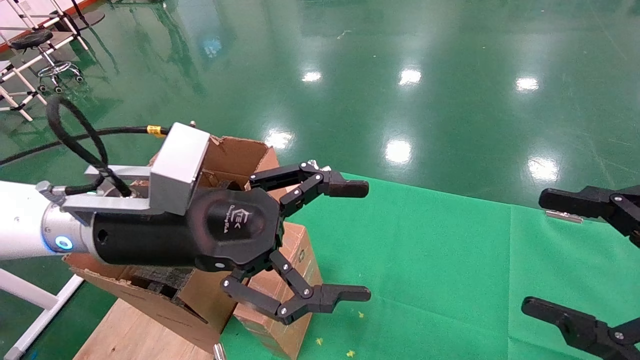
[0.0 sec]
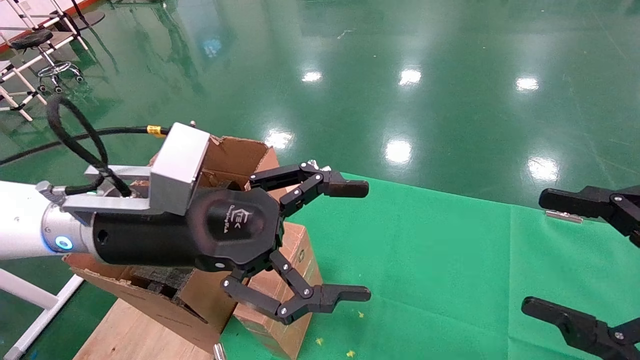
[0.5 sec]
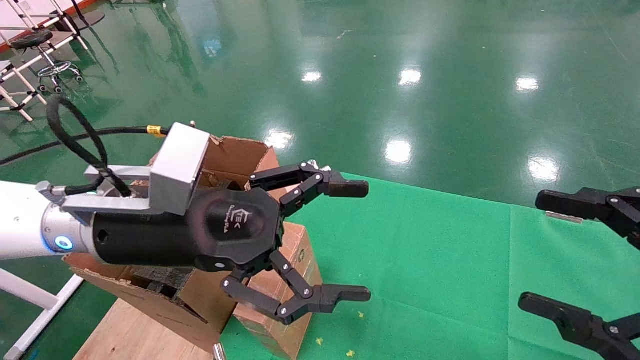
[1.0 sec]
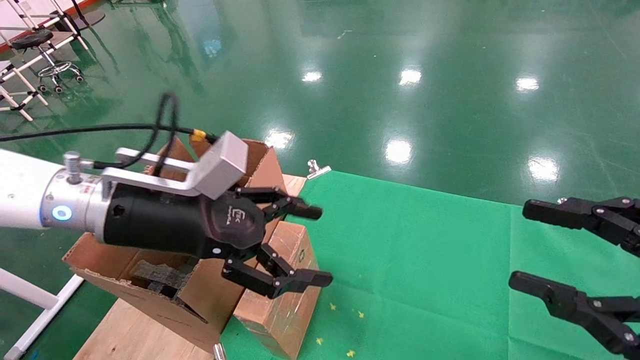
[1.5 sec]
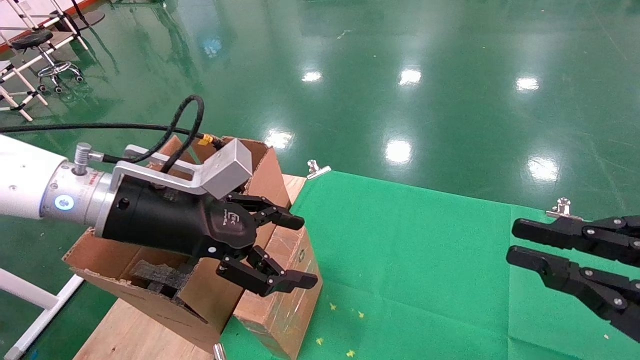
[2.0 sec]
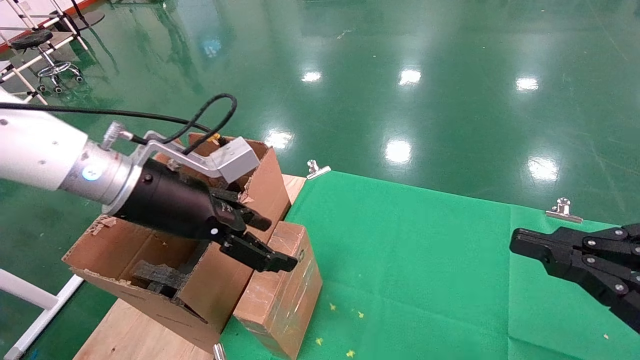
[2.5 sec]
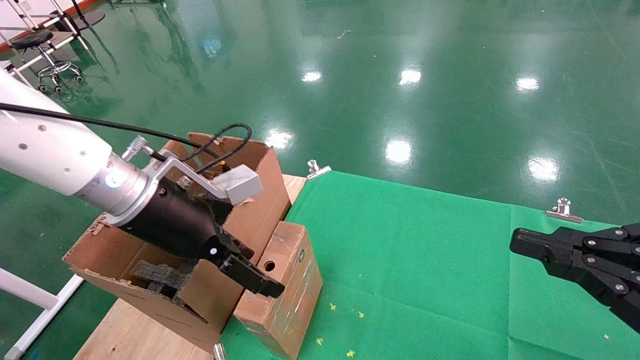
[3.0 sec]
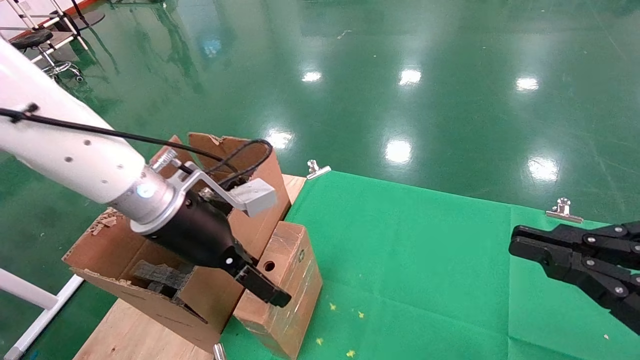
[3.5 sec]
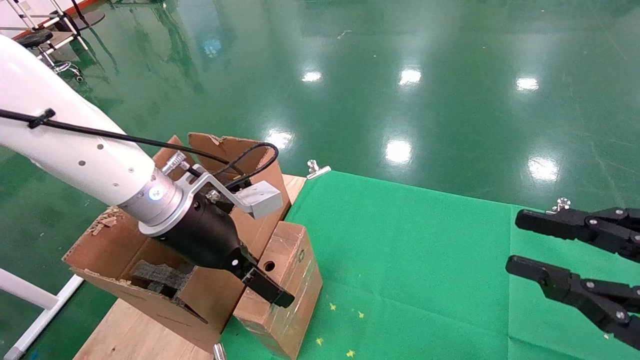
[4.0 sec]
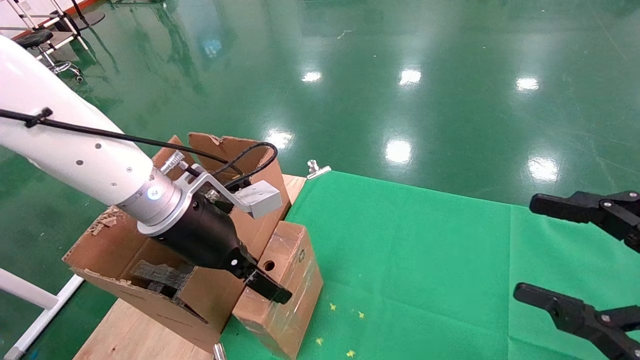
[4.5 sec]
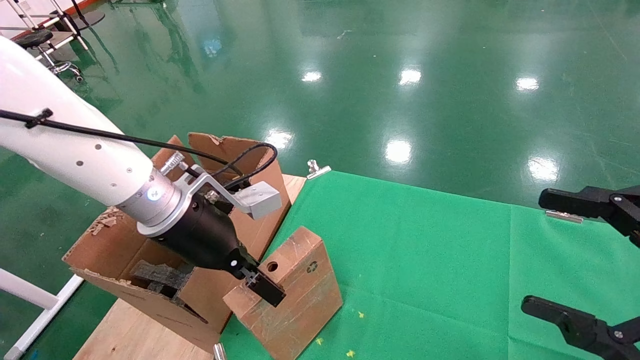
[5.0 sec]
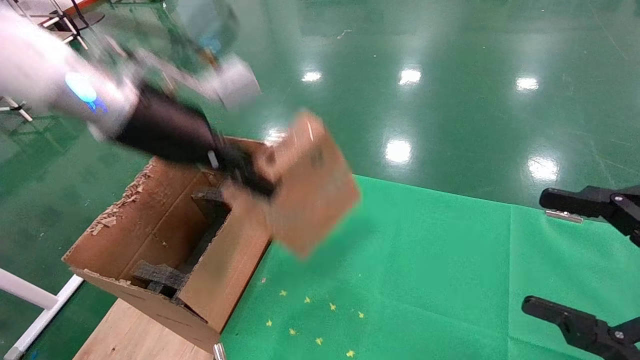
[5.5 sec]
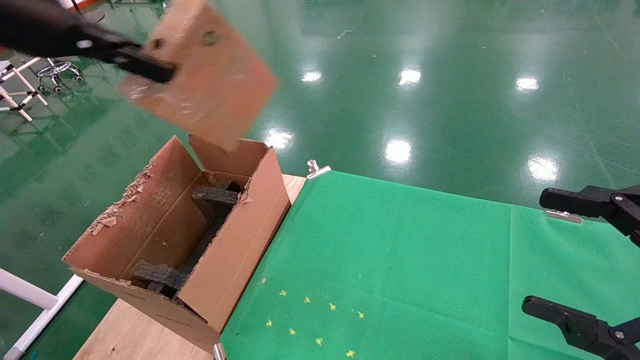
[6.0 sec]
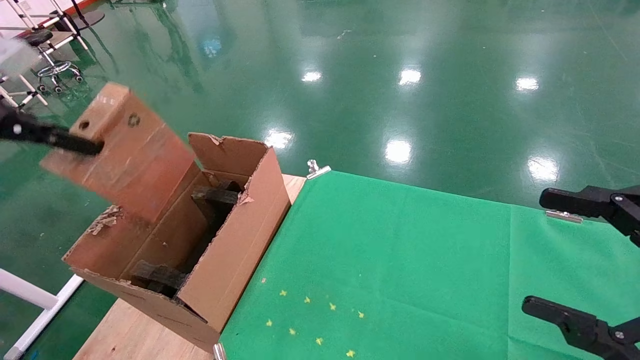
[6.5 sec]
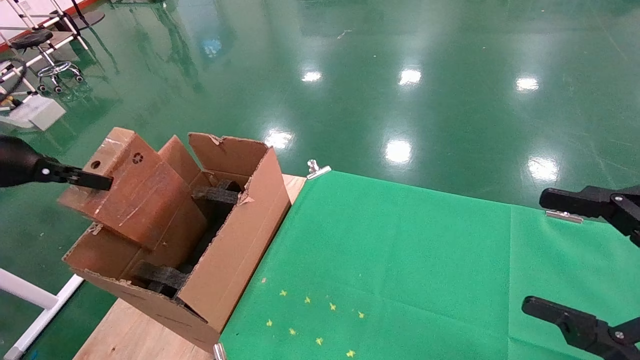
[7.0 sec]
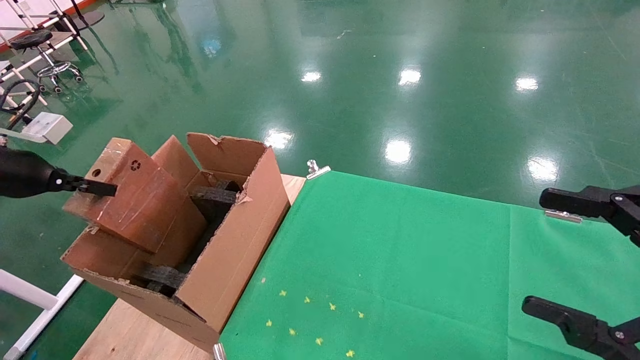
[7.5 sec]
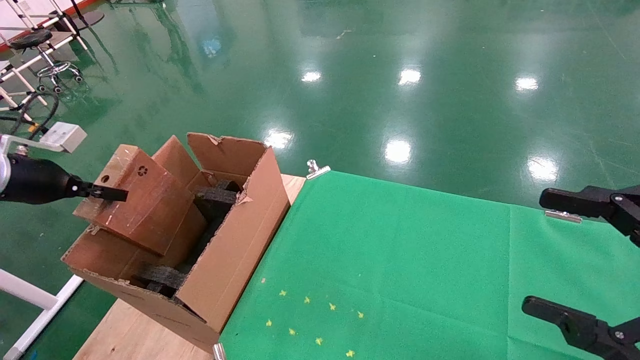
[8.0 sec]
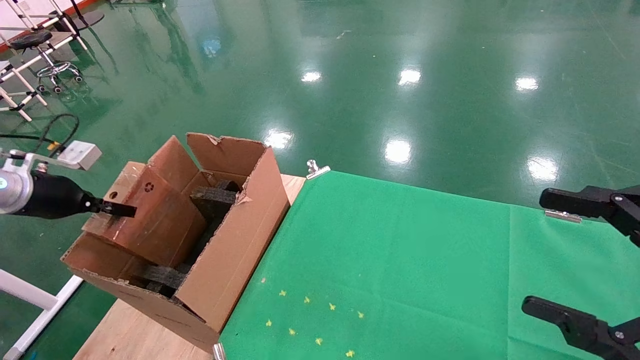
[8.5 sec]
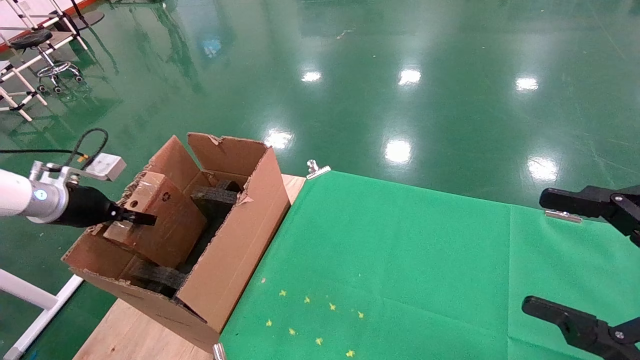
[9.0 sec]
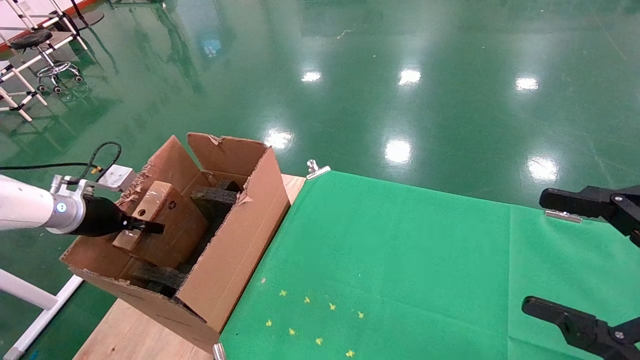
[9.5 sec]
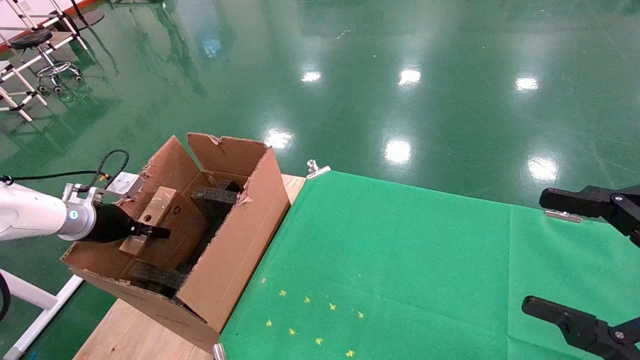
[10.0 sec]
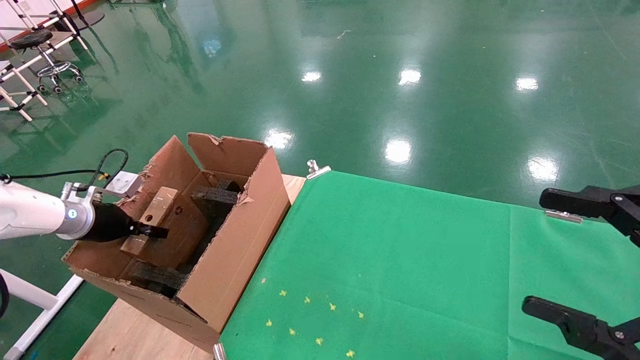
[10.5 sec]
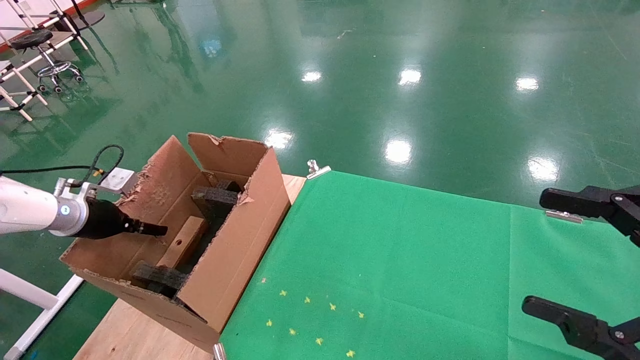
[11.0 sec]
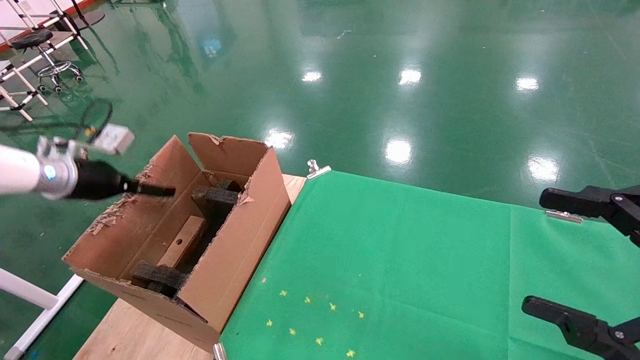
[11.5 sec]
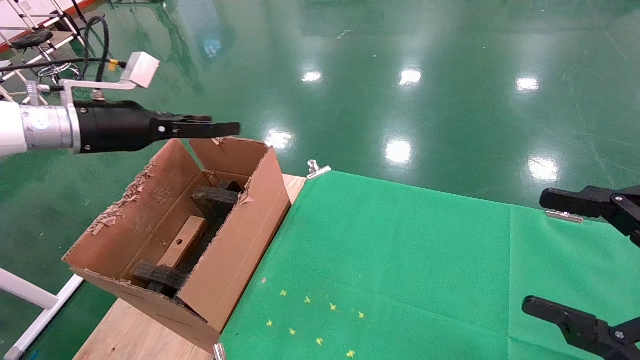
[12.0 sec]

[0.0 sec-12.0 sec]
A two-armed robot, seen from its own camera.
Task of the whole recording: using a robotic arm to pick up a cardboard box and palace it the carton.
Step, 1.5 sec to 4.5 sec: Pick up the mouse and the power cord paper box.
Step, 5.0 sec to 11.5 sec: Place the mouse and the power cord paper box into the container.
0.0 sec to 2.0 sec: The right gripper closes.
2.0 sec to 4.0 sec: The left gripper ends up some 5 cm from where it was.
4.0 sec to 6.0 sec: The left gripper travels upward and to the left by roughly 25 cm, and closes its fingers; the right gripper opens.
6.0 sec to 8.0 sec: The left gripper travels downward and to the left by approximately 25 cm.
8.0 sec to 10.0 sec: The left gripper moves downward and forward, about 15 cm.
10.0 sec to 12.0 sec: The left gripper is displaced upward and to the right by roughly 20 cm, and opens its fingers.

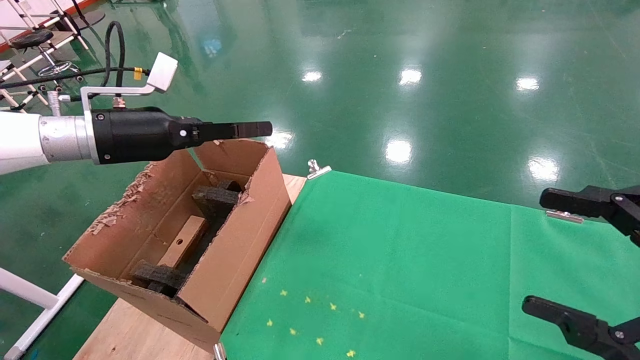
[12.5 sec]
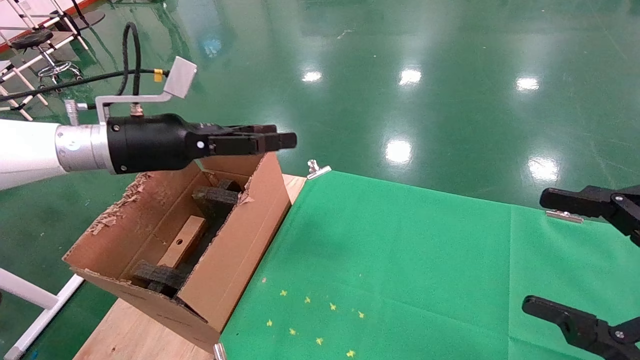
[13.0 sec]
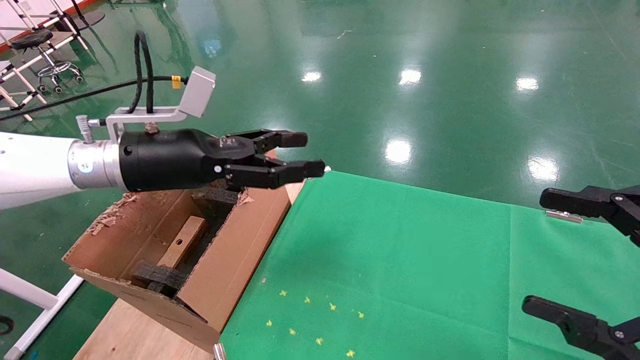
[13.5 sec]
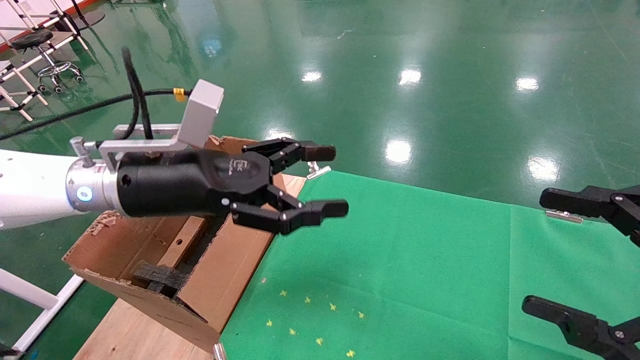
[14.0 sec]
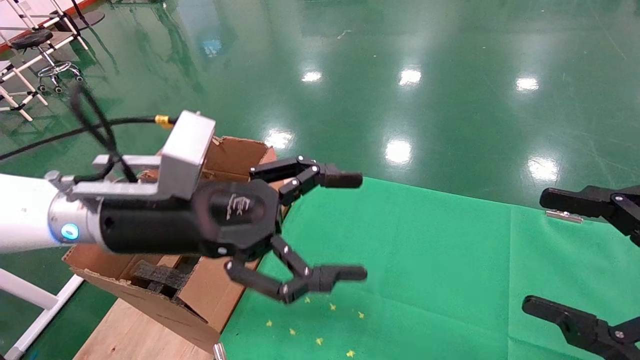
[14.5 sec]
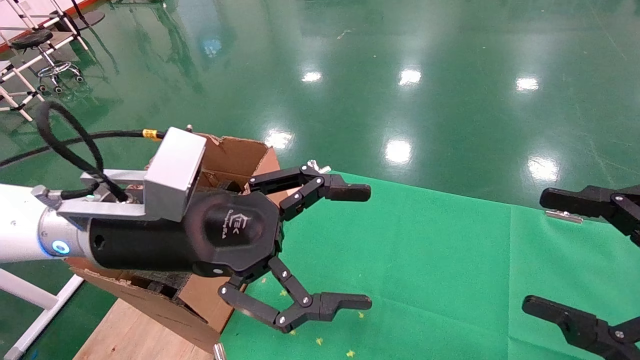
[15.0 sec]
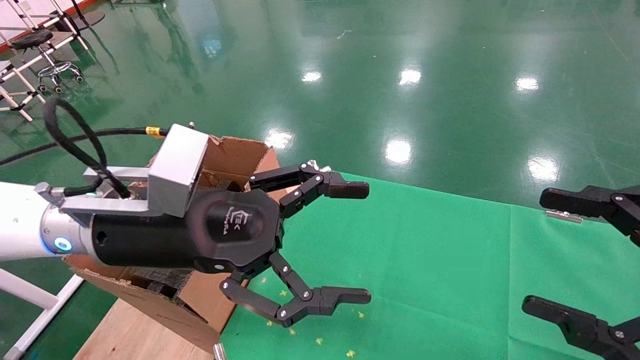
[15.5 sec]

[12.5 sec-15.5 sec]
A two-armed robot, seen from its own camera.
Task of the whole recording: using a robotic arm to pick up a cardboard box and palace it the carton.
12.5 sec to 14.0 sec: The left gripper heads to the right and backward, covering some 15 cm.
14.0 sec to 15.5 sec: The left gripper shifts about 5 cm backward.
